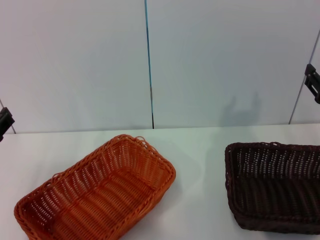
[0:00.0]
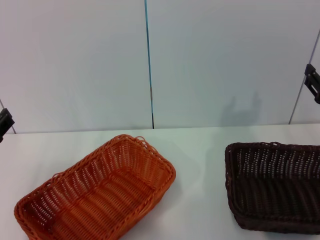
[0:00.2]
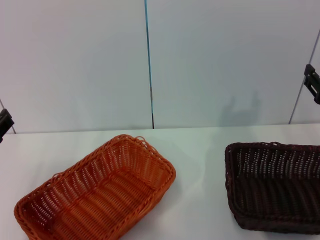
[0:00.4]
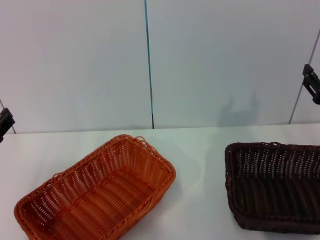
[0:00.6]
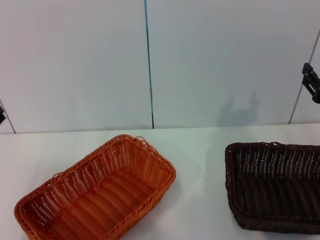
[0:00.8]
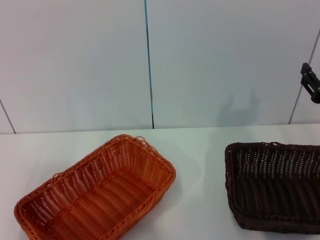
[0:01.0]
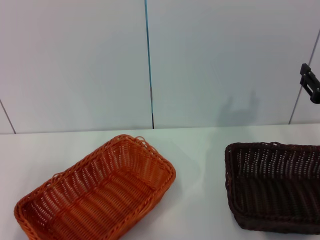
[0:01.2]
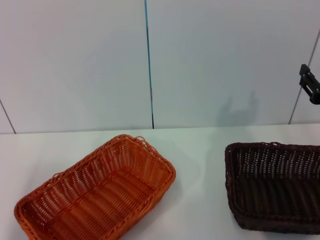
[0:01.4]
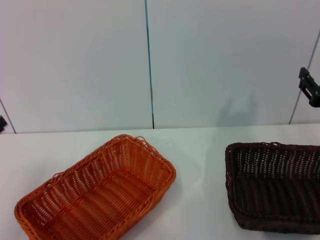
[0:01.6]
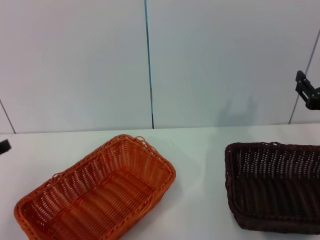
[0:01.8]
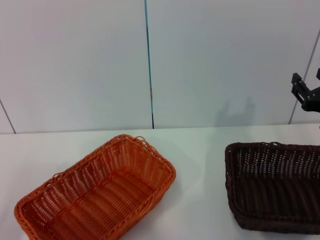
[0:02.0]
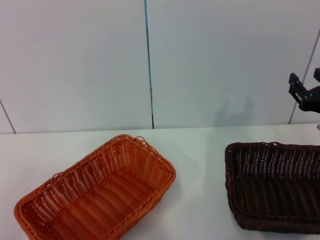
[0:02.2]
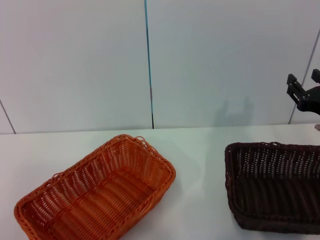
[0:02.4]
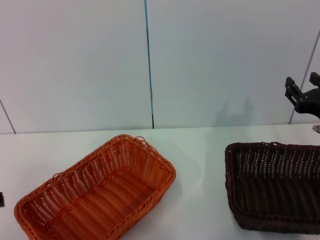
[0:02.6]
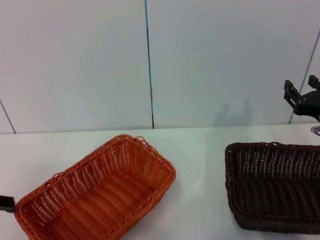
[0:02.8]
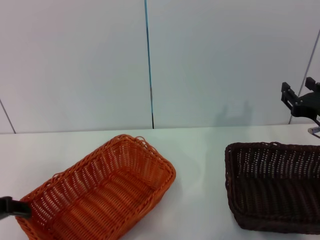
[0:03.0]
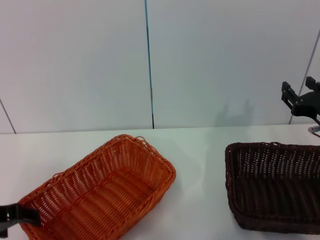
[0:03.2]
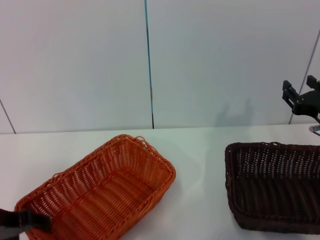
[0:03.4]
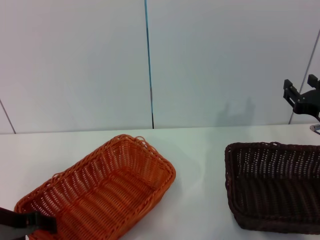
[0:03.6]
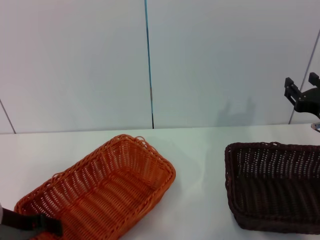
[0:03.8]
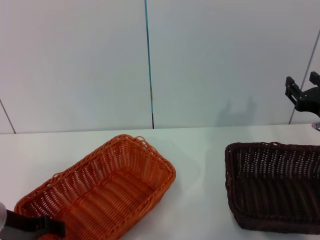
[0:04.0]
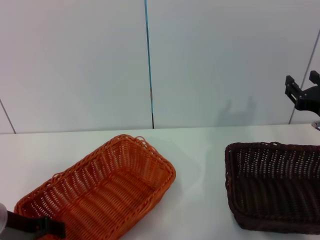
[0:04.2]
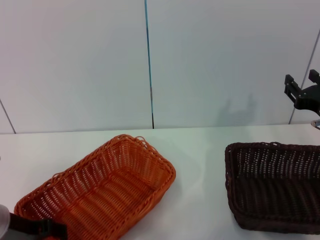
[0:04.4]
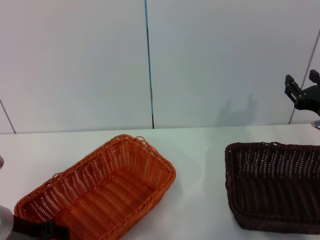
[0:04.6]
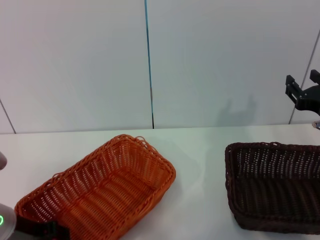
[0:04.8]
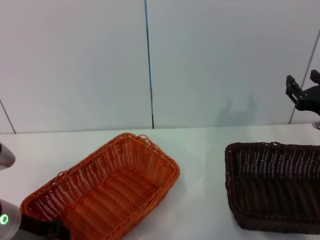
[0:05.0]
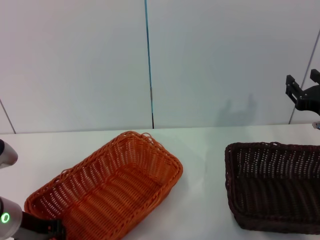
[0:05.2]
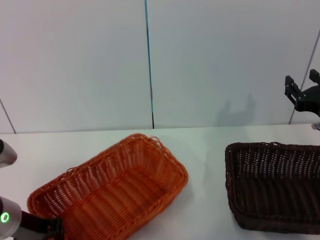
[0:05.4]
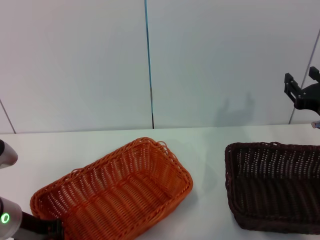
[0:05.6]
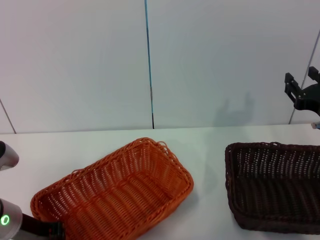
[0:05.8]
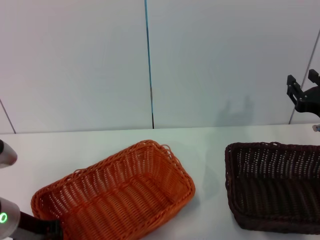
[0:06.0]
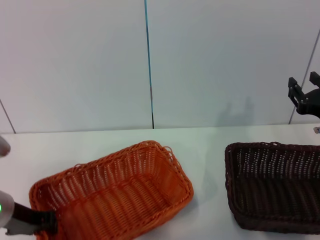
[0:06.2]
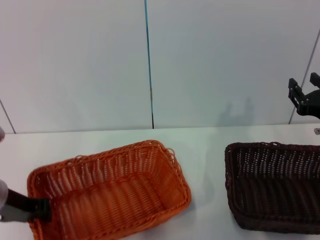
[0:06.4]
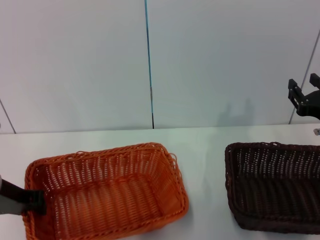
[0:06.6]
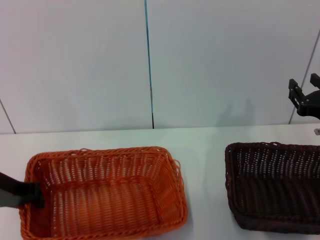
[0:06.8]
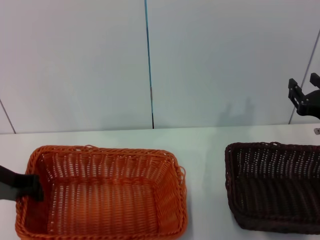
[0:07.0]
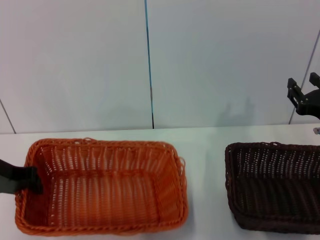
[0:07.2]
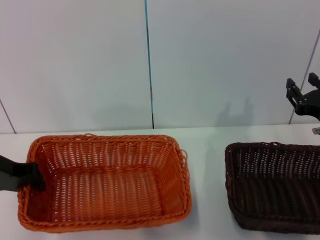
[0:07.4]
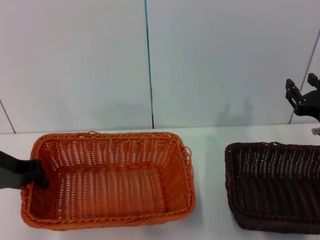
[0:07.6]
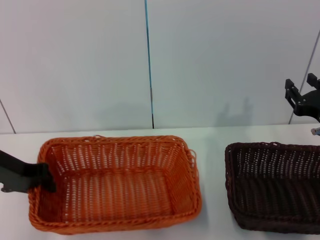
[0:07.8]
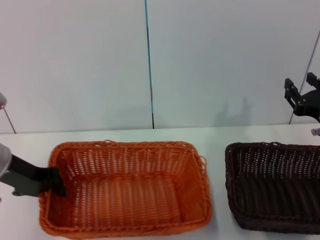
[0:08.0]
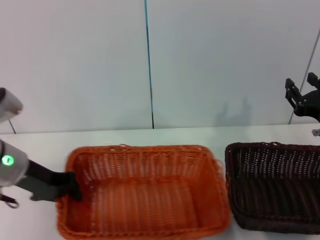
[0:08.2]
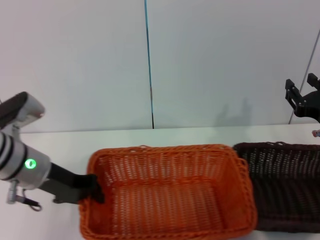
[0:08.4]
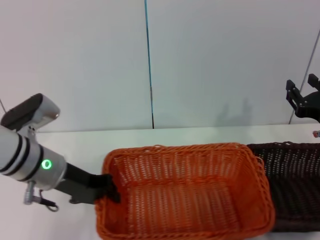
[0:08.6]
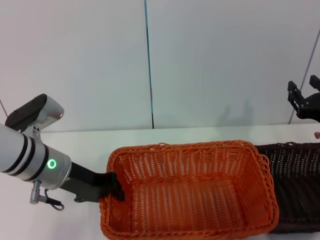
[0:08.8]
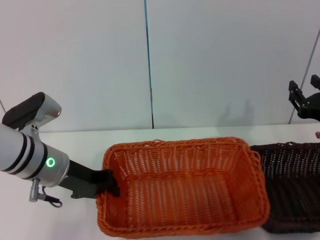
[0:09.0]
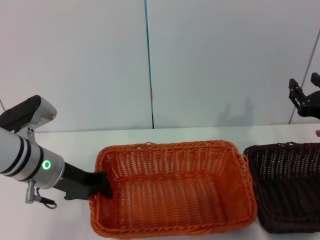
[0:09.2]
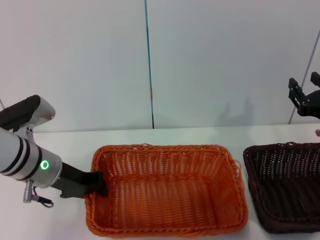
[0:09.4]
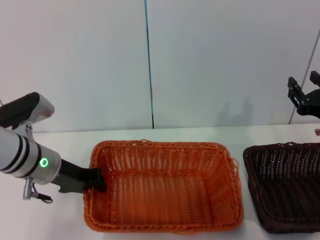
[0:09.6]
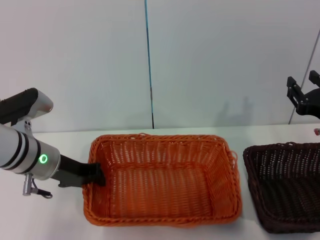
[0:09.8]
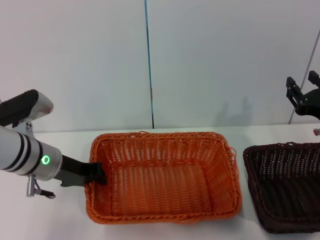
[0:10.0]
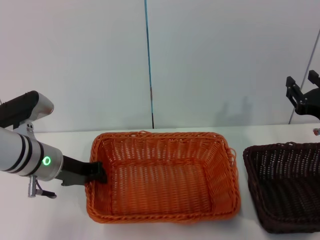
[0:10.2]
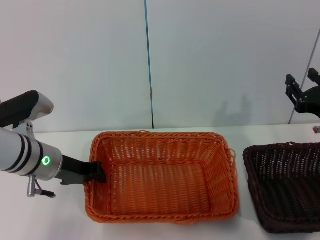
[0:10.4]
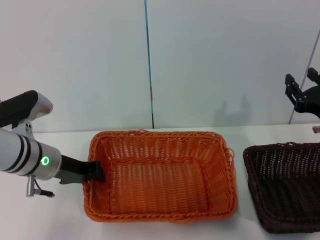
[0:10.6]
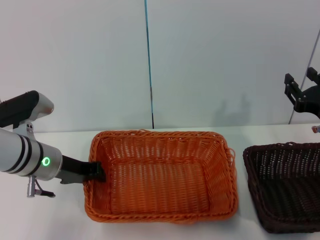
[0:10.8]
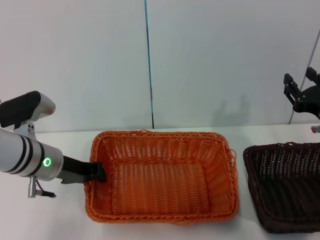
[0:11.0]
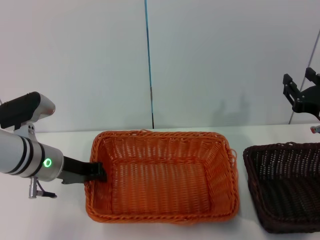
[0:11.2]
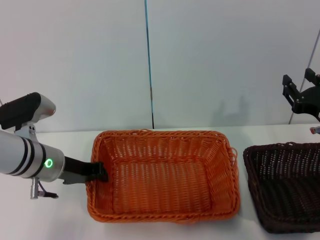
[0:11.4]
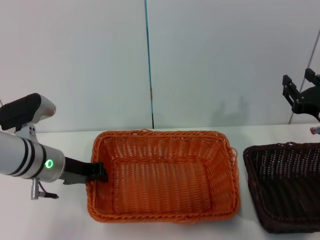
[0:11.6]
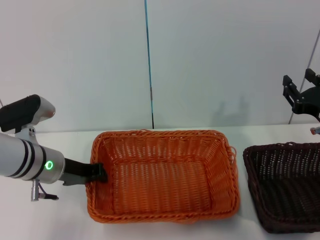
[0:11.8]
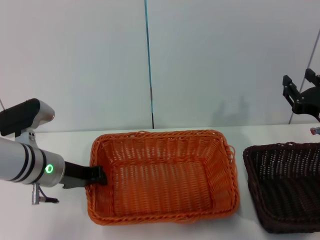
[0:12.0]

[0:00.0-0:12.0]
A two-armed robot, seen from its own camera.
Step, 0:00.0 to 0:06.2: Pick up the light basket with the left gripper.
0:00.0 to 0:01.6: The left gripper changes place by approximately 5 cm.
0:03.0 to 0:04.4: The left gripper shifts about 10 cm downward.
0:04.4 to 0:06.0: The left gripper closes.
0:06.0 to 0:07.6: The left gripper goes approximately 10 cm upward and forward.
0:07.6 to 0:09.0: The left gripper shifts about 10 cm to the right.
0:09.0 to 0:12.0: There are only small adjustments of the grippers.

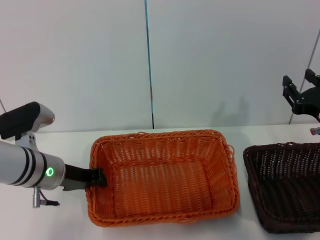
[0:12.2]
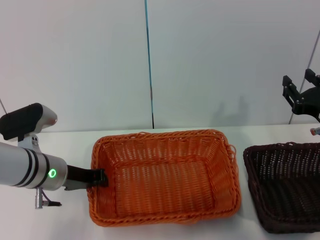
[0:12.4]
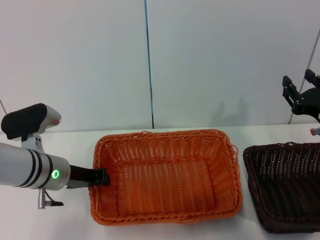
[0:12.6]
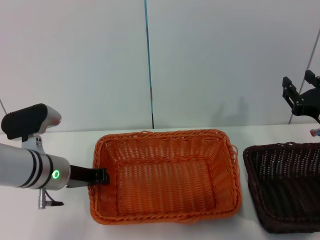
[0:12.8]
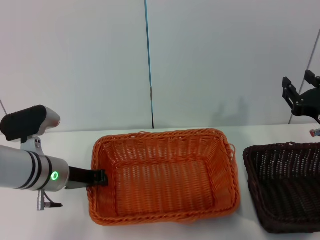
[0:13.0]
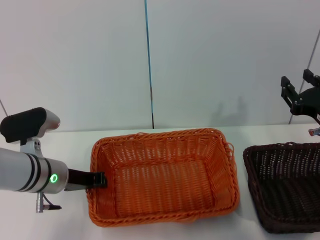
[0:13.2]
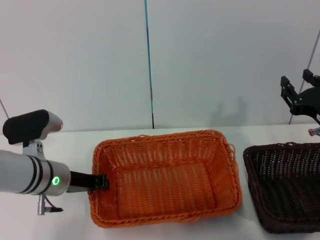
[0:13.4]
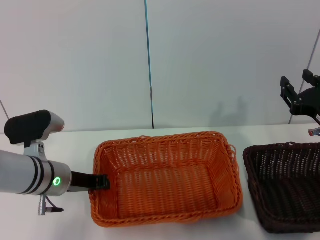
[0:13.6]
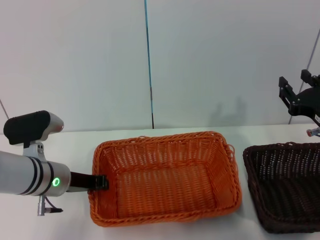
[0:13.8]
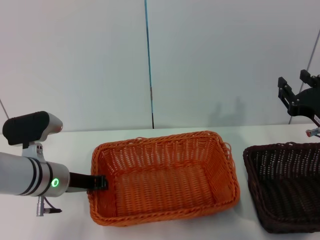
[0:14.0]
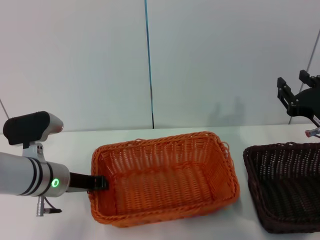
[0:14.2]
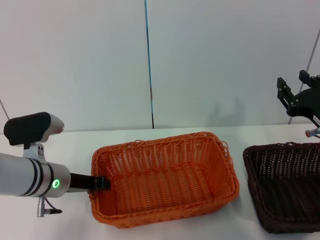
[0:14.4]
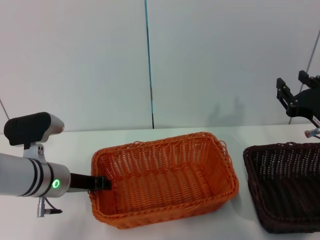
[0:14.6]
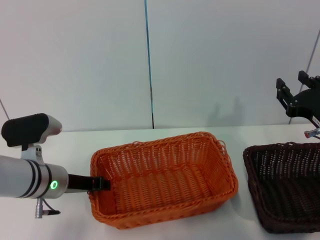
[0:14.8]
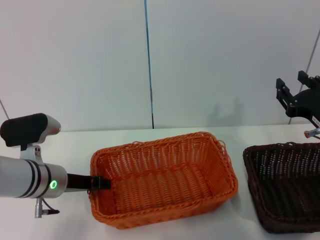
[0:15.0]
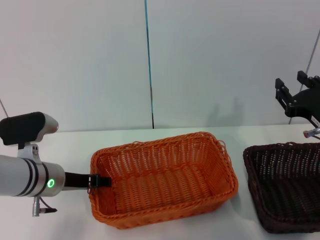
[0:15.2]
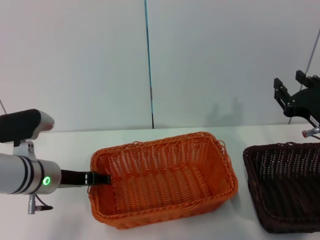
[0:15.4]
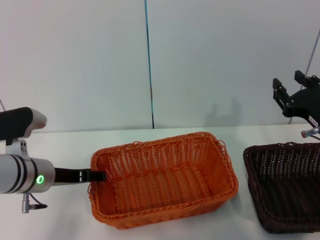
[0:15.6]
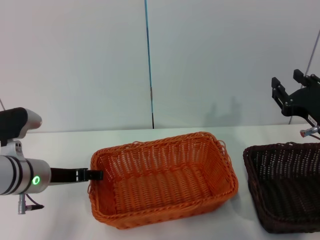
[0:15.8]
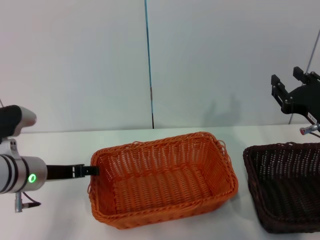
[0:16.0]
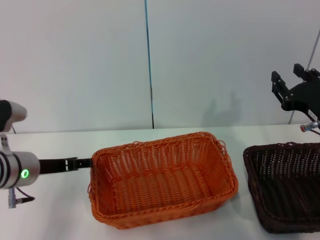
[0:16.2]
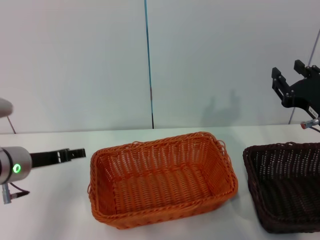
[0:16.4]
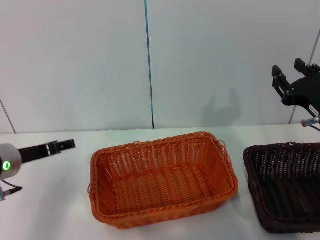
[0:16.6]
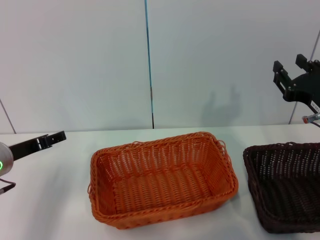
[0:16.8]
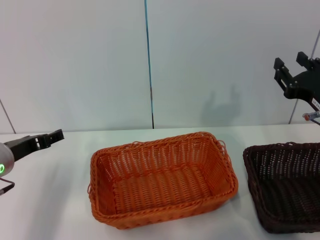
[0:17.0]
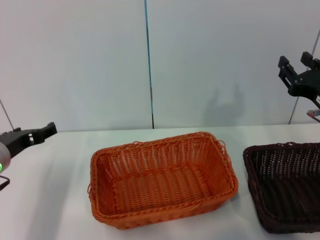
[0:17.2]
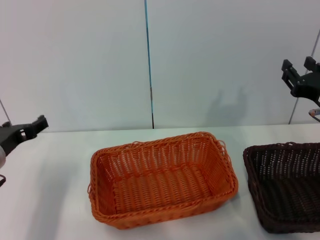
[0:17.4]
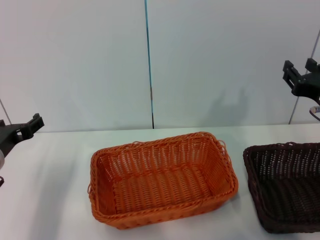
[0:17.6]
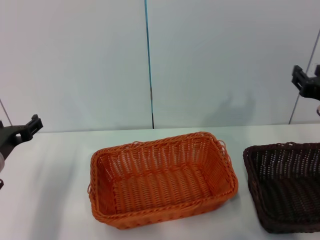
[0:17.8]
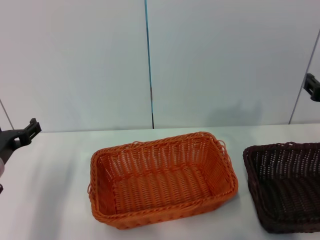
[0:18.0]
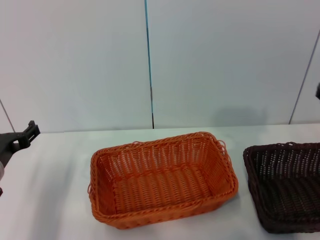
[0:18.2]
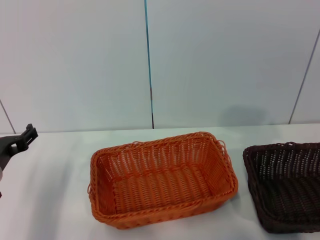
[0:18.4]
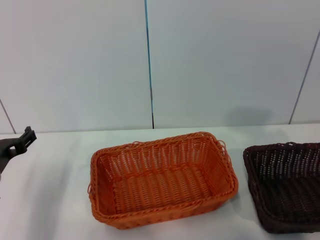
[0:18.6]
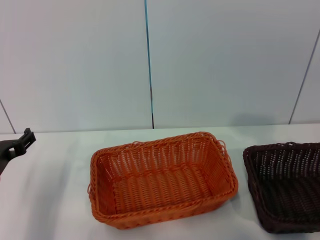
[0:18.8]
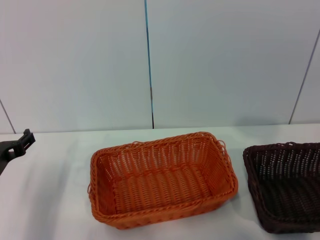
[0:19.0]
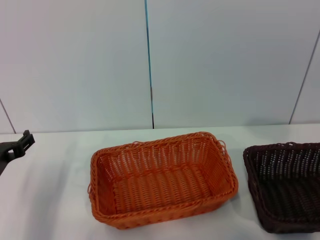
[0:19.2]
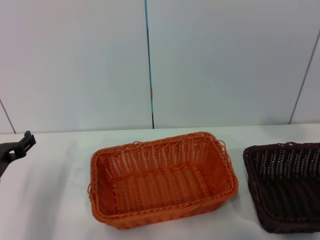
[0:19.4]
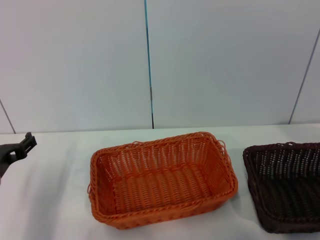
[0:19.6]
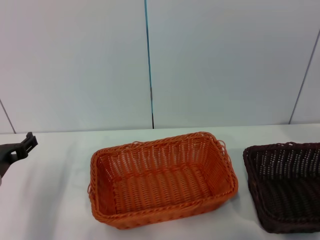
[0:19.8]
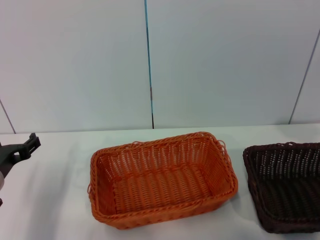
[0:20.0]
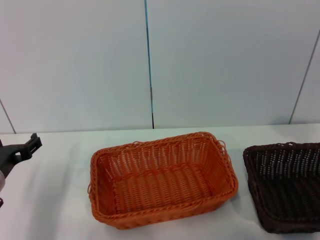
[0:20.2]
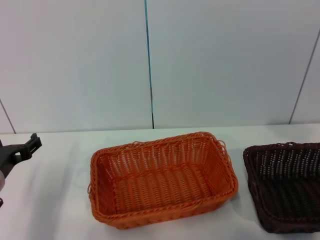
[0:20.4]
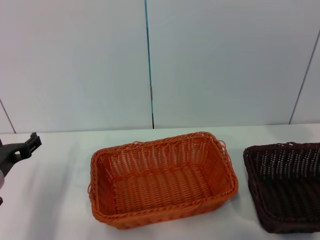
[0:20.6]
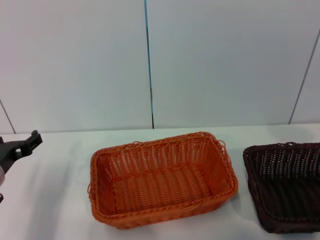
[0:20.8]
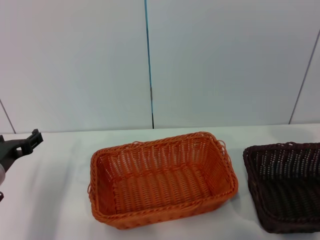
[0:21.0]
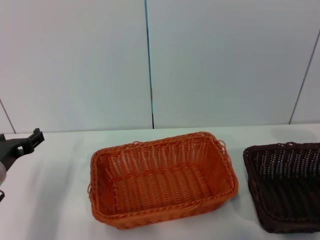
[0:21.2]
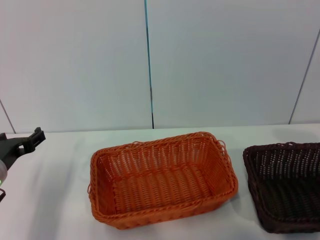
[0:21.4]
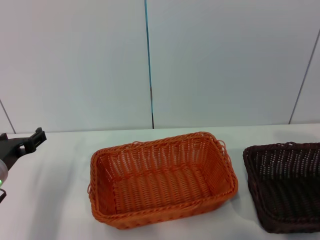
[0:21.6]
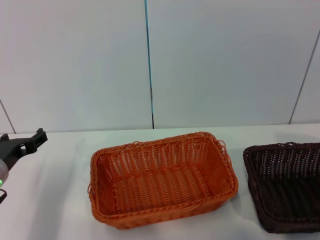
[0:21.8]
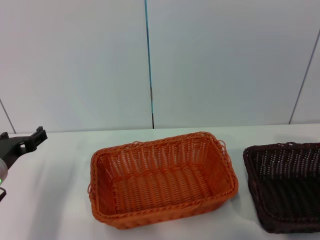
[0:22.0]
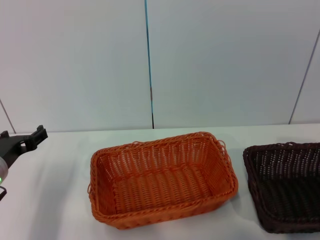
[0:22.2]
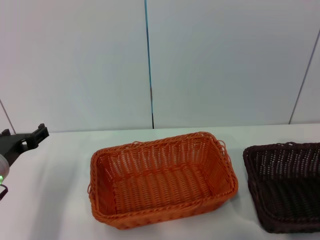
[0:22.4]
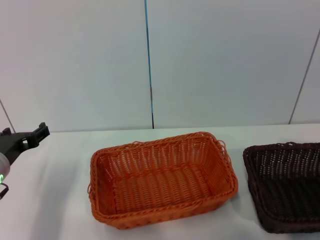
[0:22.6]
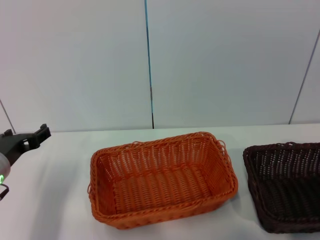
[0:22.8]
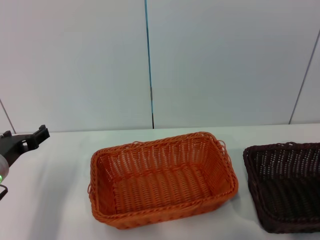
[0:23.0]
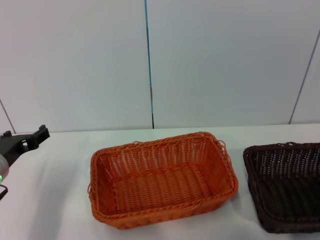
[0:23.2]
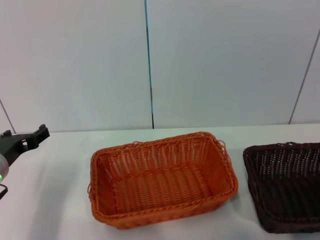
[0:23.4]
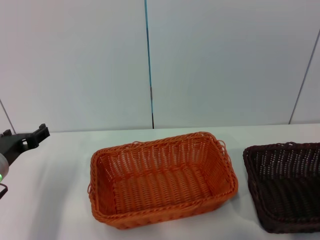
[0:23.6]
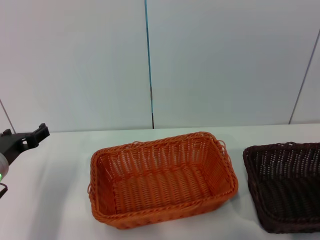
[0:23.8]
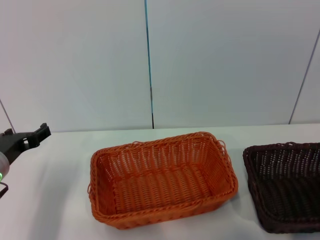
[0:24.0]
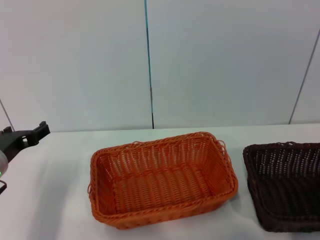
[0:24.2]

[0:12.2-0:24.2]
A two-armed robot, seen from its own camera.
Step, 0:12.2 to 0:14.8: Place the light basket in the center of view with the left gripper.
0:12.2 to 0:13.8: The grippers move only a little.
0:13.8 to 0:15.2: The left gripper opens its fingers.
0:15.2 to 0:16.6: The left gripper heads to the left, covering approximately 5 cm, and opens its fingers.
0:21.2 to 0:24.2: The grippers make only small movements.
